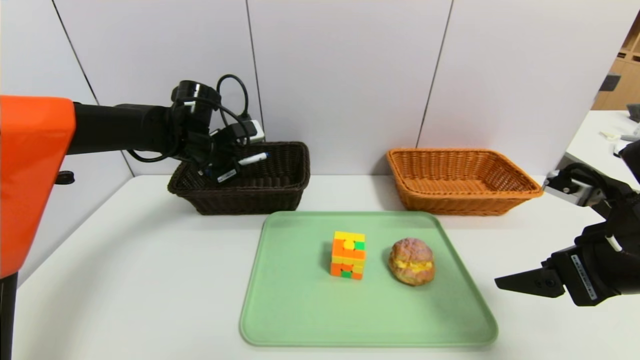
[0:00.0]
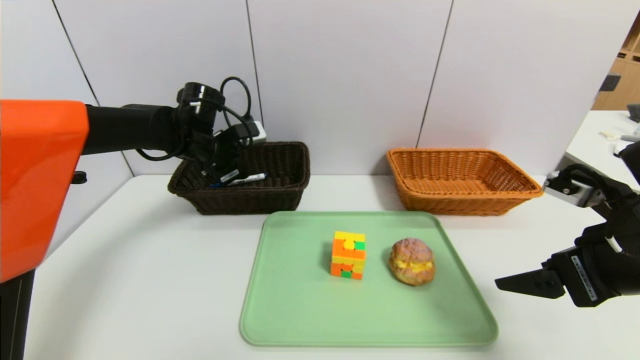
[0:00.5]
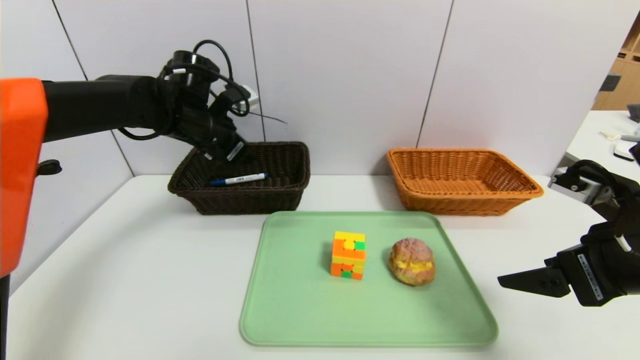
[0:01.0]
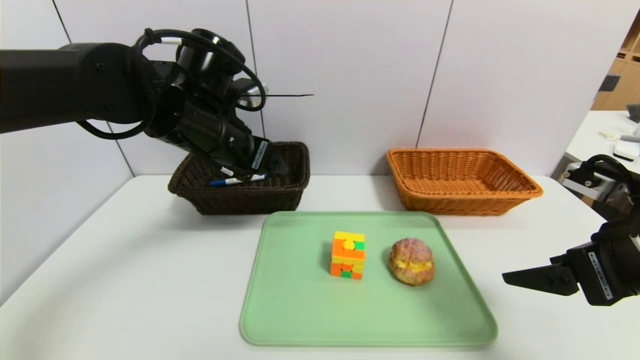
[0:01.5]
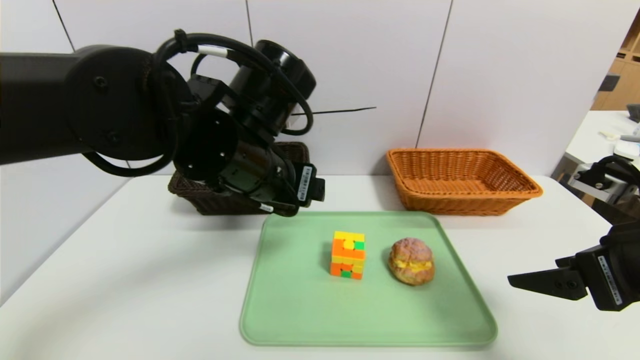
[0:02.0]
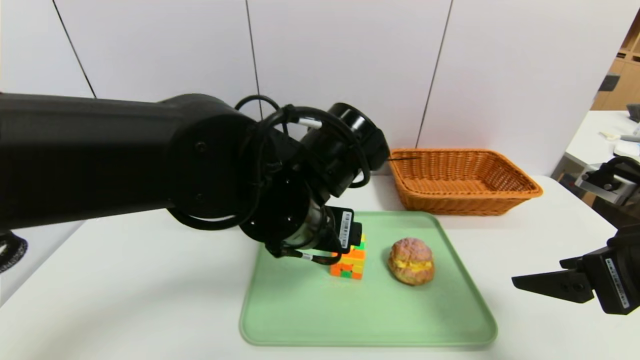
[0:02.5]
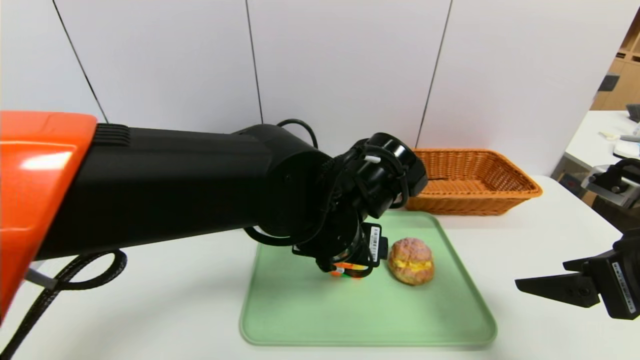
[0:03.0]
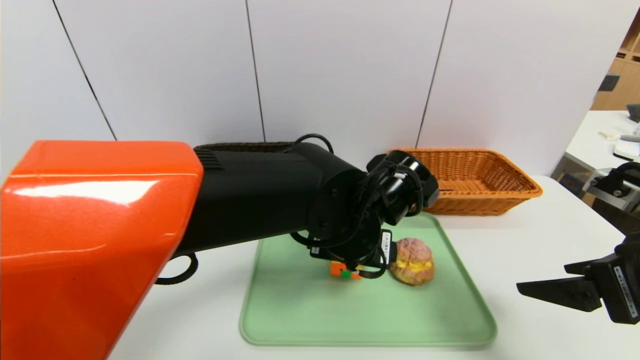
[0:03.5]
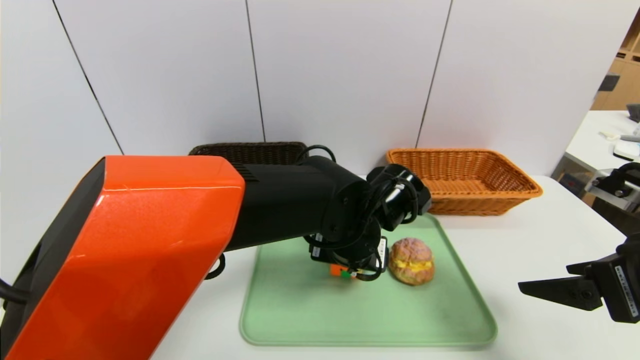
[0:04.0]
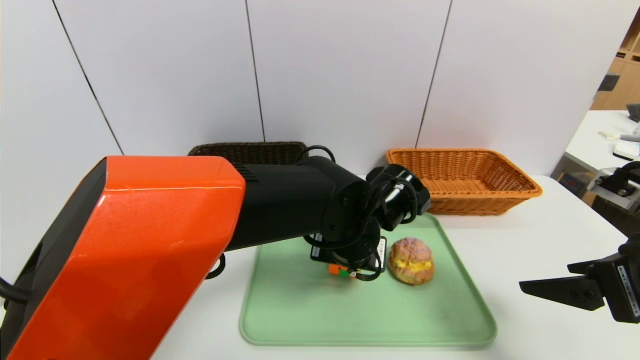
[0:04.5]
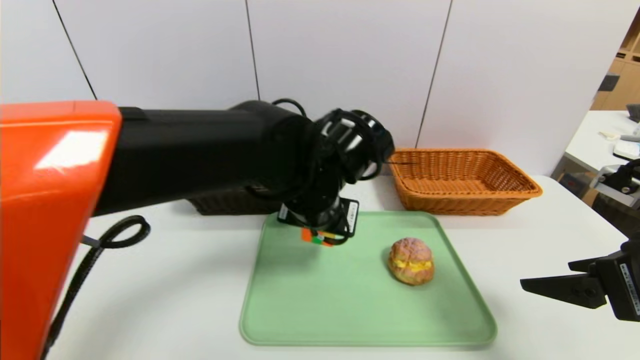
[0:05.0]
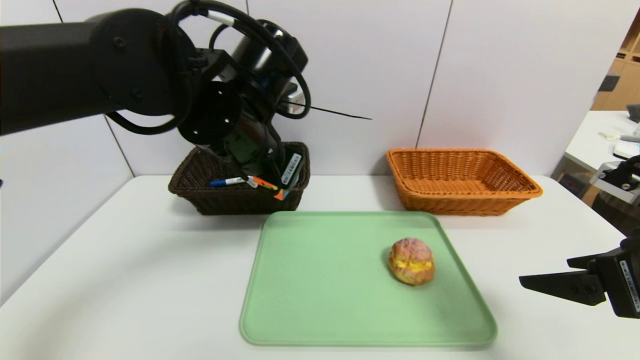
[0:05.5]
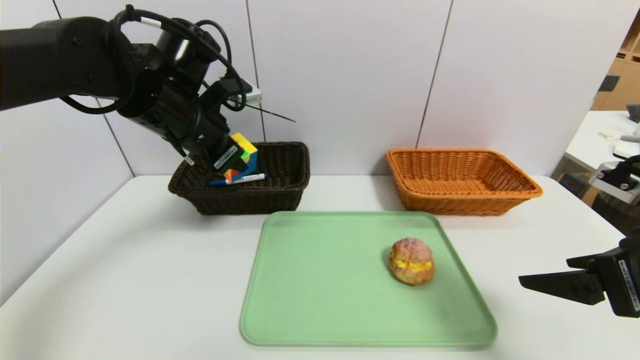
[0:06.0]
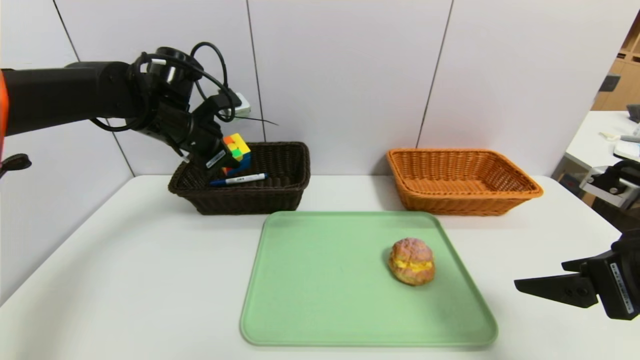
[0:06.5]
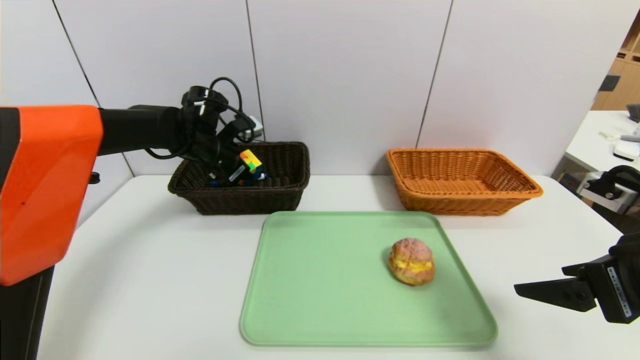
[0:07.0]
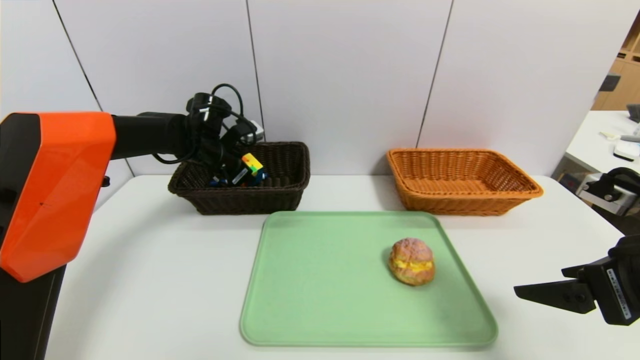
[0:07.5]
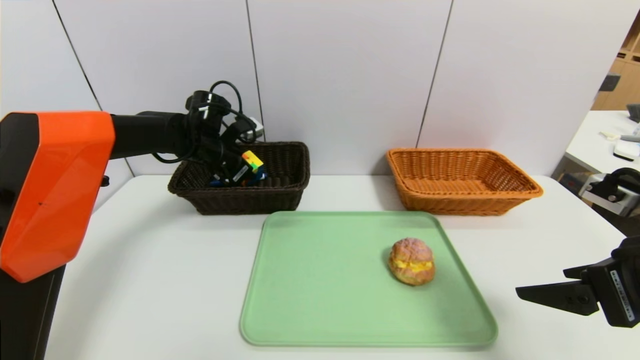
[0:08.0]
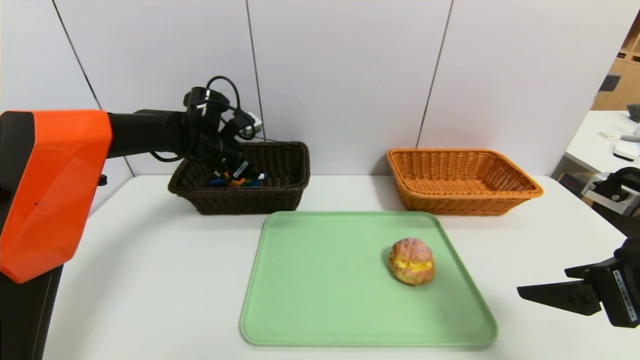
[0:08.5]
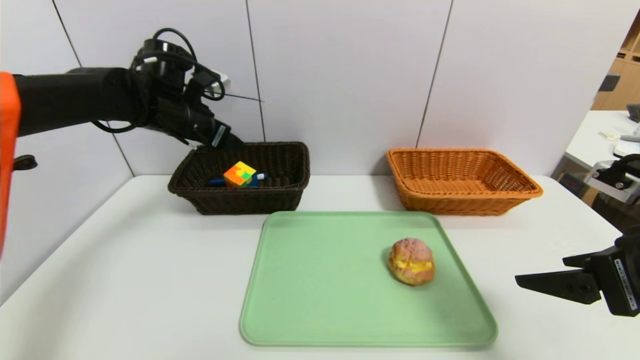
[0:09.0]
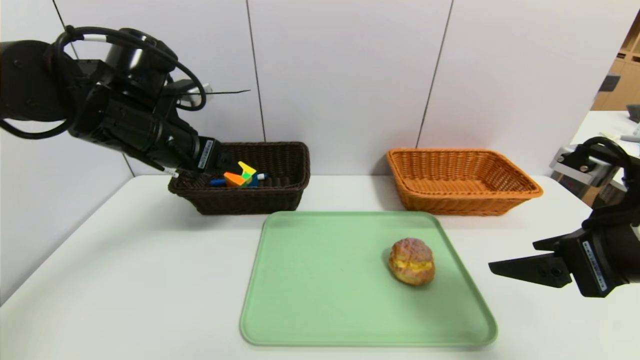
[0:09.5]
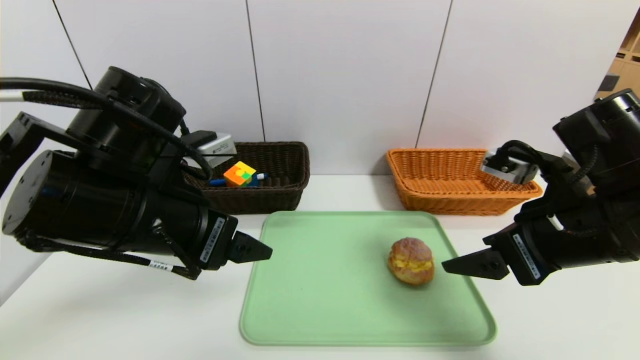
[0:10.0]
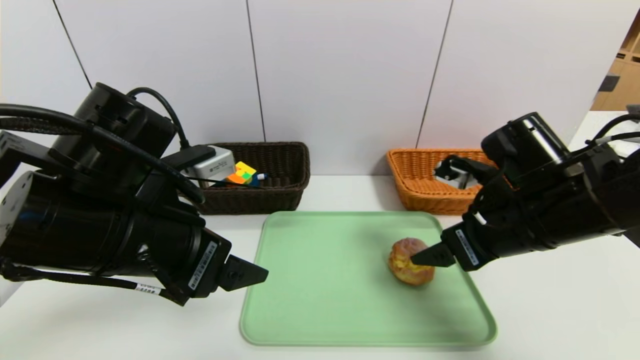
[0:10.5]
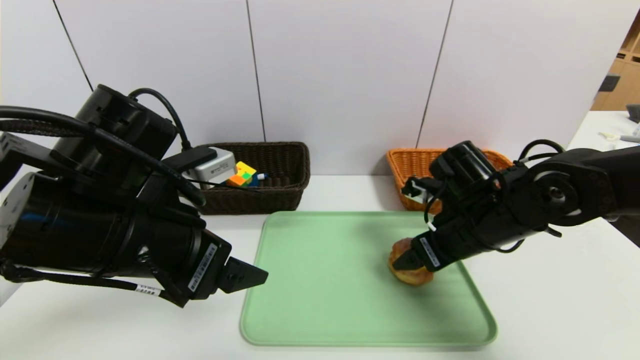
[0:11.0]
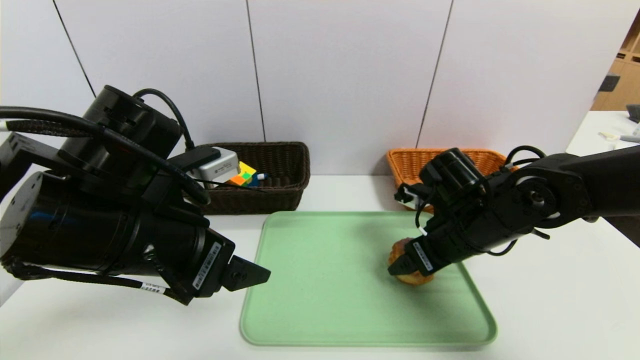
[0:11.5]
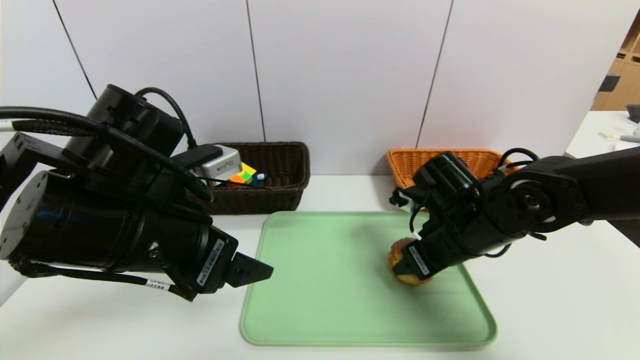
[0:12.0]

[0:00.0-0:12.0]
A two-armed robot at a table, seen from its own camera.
Task of the whole recording: place the food in the right basket with the right gripper, and place the non food items in the left basket with the left gripper.
Step, 0:01.0 to 0:08.5: Grasp the rubiks cube and put it in the left basket.
0:00.0 to 0:02.0: The left gripper travels backward and to the right by about 20 cm, and opens.
0:02.0 to 0:04.0: The left gripper travels to the right and downward by about 15 cm.
0:04.0 to 0:06.0: The left gripper moves to the left and upward, roughly 25 cm, and closes up.
0:06.0 to 0:08.0: The left gripper goes roughly 15 cm forward and downward.
0:08.0 to 0:10.0: The right gripper moves to the left and forward, some 10 cm. Meanwhile the left gripper goes approximately 25 cm backward, and opens up.
0:10.0 to 0:12.0: The right gripper is displaced downward, forward and to the left by approximately 15 cm, and closes up.

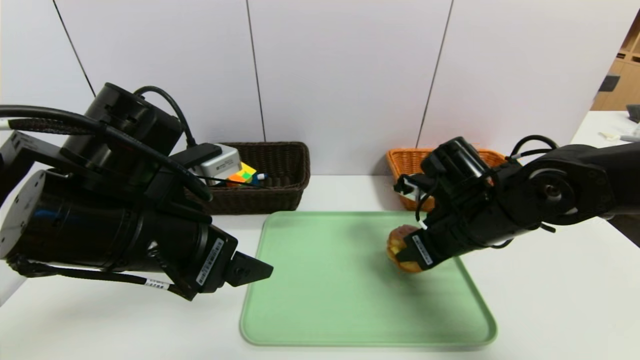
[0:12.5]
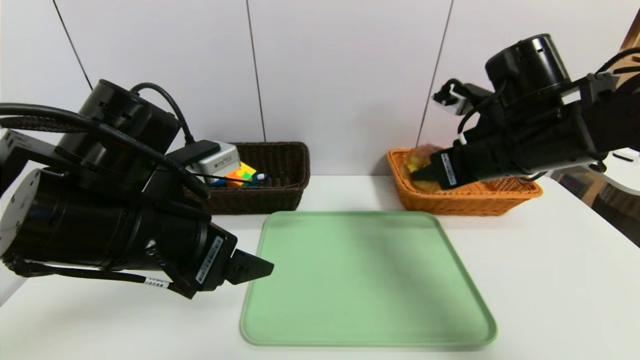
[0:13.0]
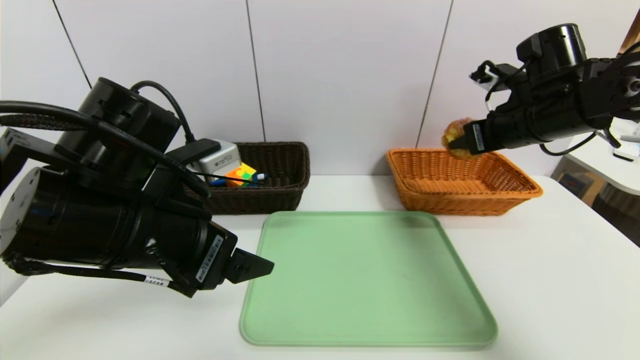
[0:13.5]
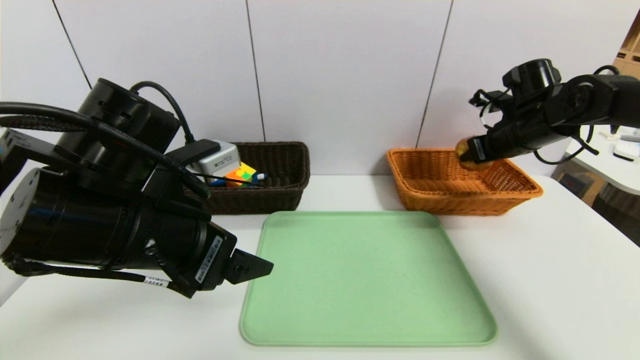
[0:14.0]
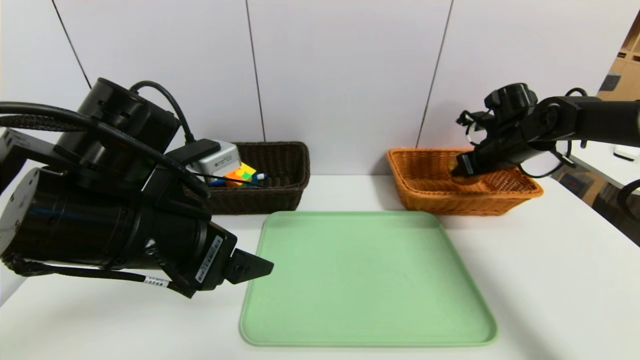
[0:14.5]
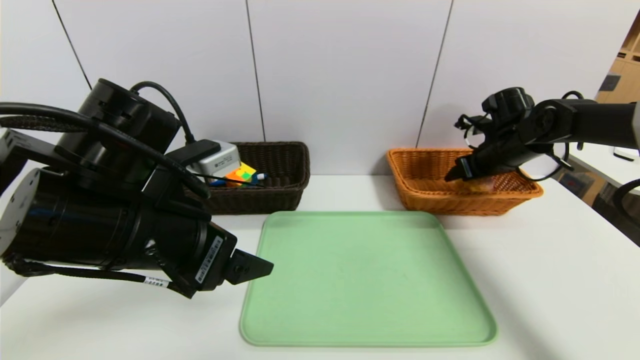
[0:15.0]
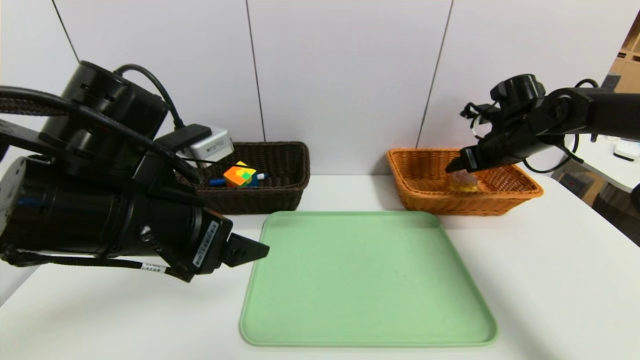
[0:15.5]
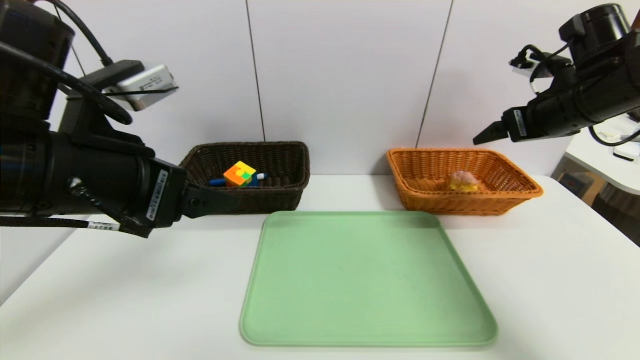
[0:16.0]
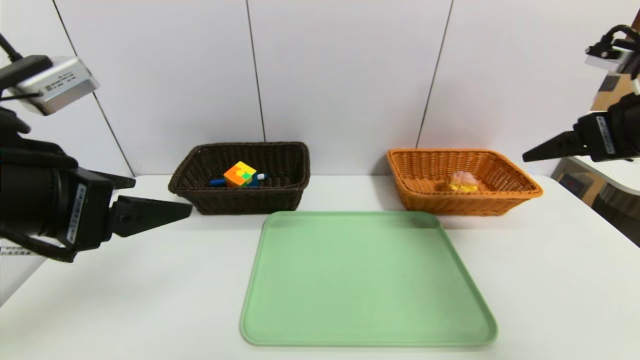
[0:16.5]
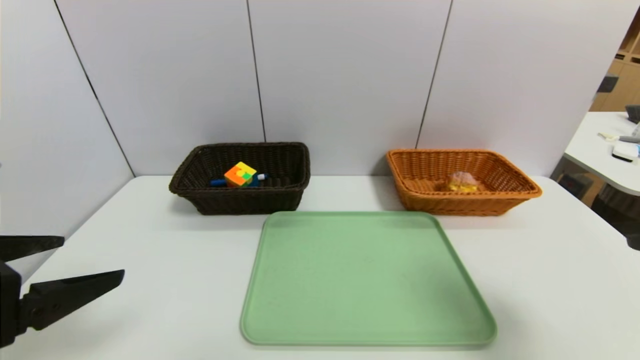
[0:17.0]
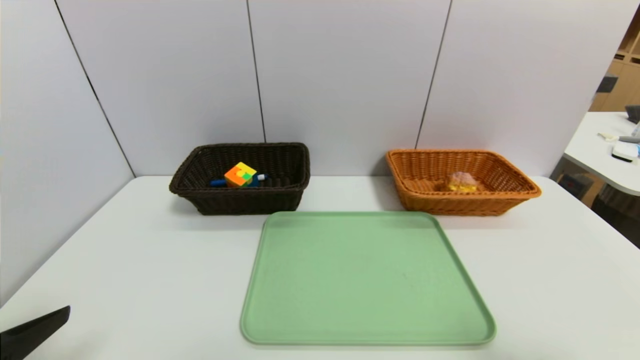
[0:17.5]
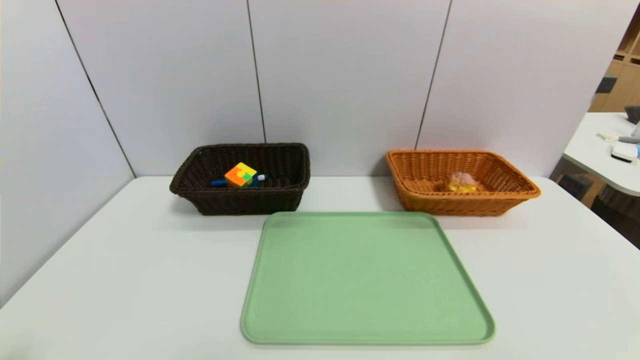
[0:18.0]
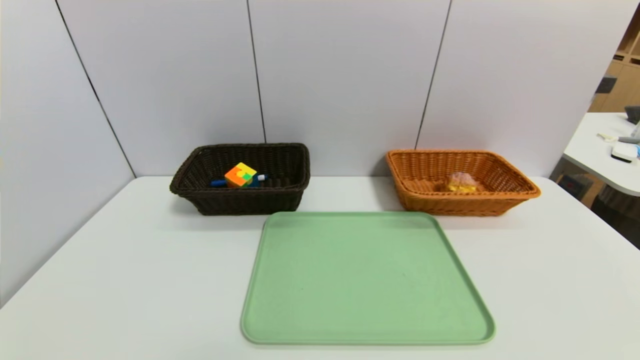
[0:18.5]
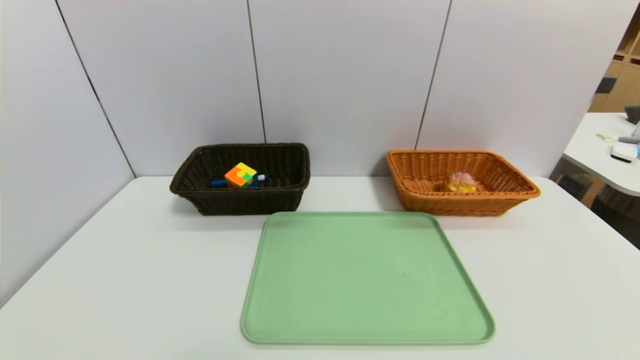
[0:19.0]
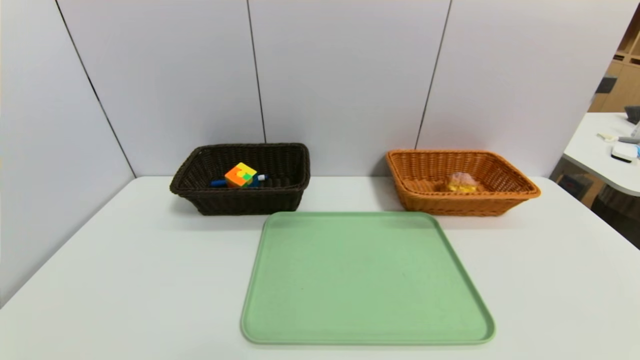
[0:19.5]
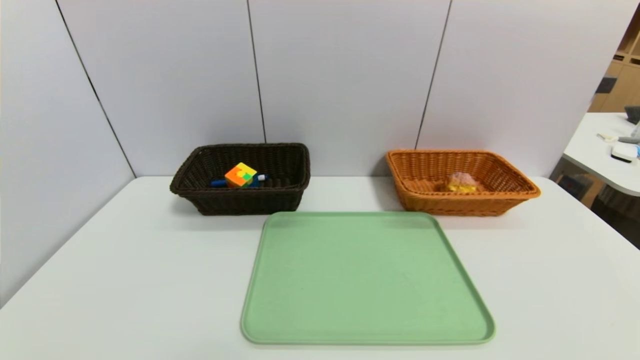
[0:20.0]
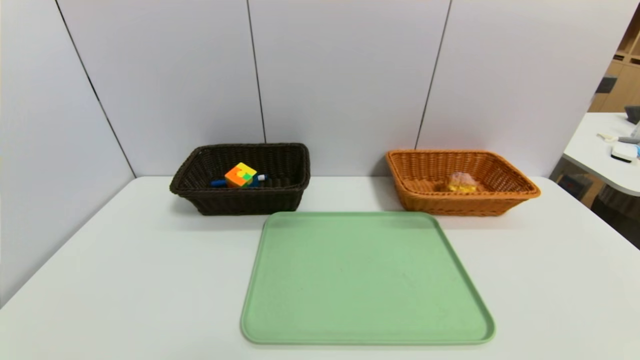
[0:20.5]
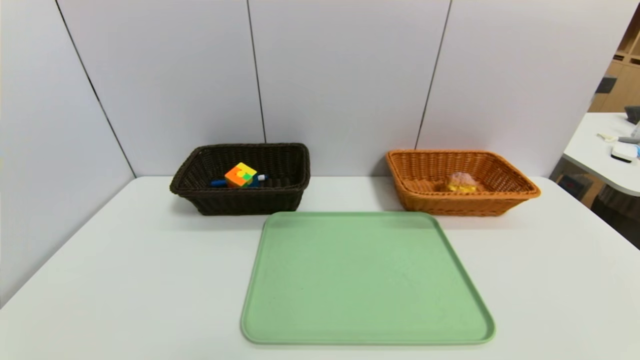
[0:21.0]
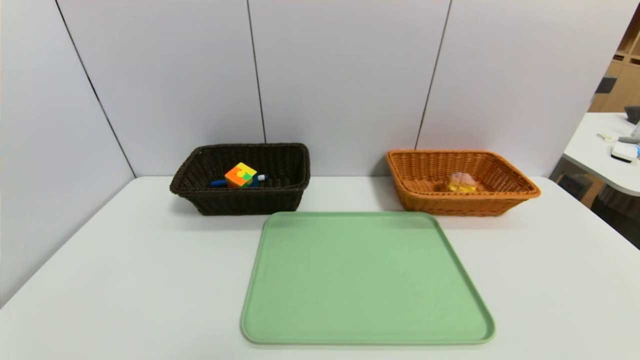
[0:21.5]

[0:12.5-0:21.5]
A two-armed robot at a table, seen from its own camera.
Task of the whole recording: place the food in the right basket with the right gripper, and place the non food items in the left basket with the left gripper.
Step, 0:12.5 to 0:16.0: Grasp the yellow cake and put it in the right basket.
0:12.5 to 0:14.5: The right gripper shifts some 20 cm forward and to the right.
0:14.5 to 0:17.0: The left gripper heads to the left and backward, covering about 15 cm. Meanwhile the right gripper heads backward, covering some 35 cm, and opens.
0:17.0 to 0:19.5: The grippers both shift downward and backward by about 20 cm.
